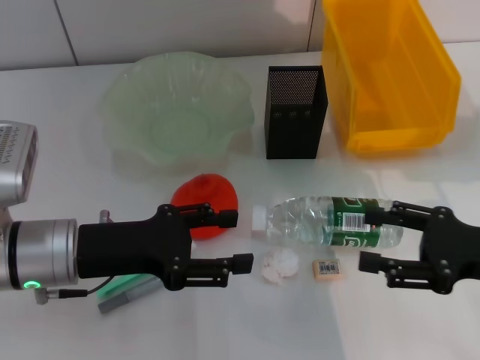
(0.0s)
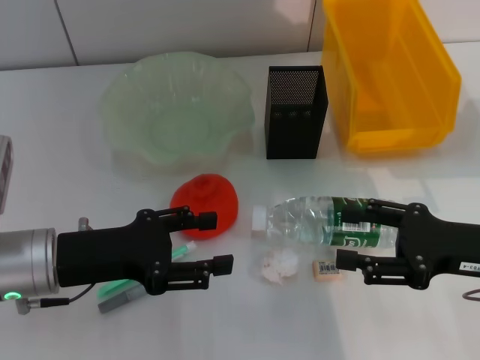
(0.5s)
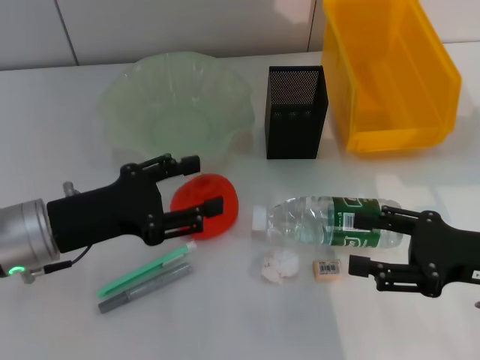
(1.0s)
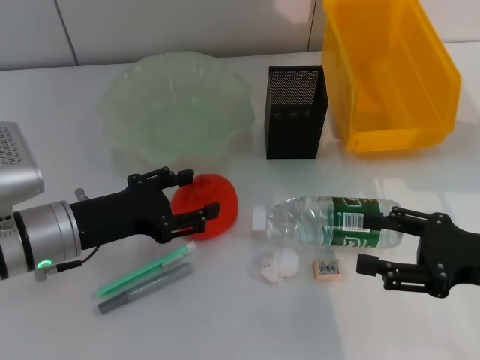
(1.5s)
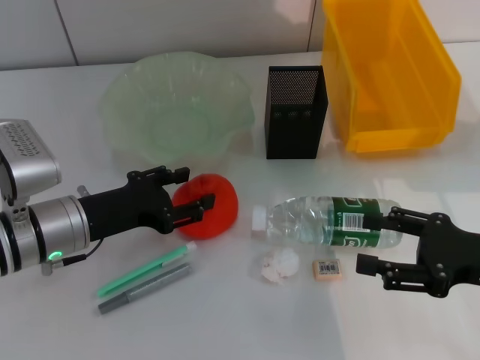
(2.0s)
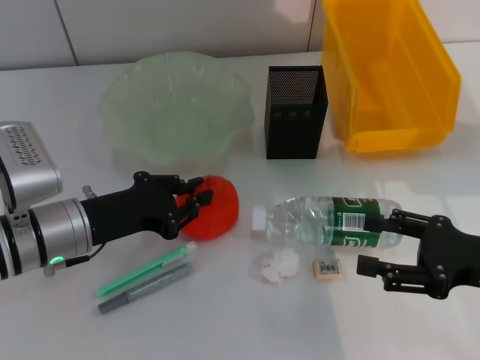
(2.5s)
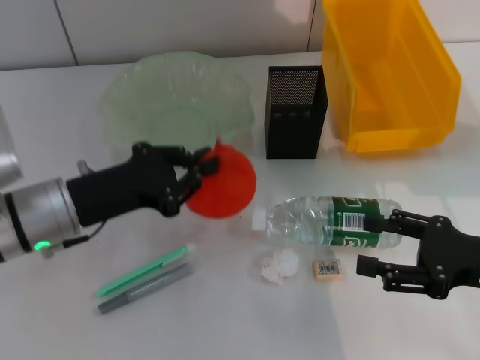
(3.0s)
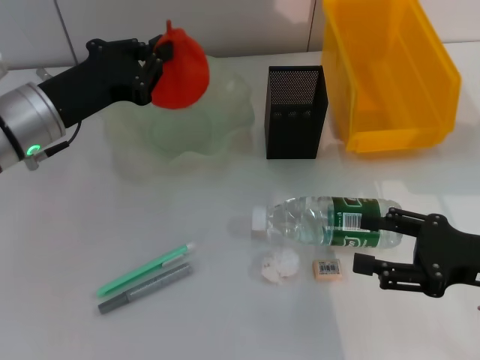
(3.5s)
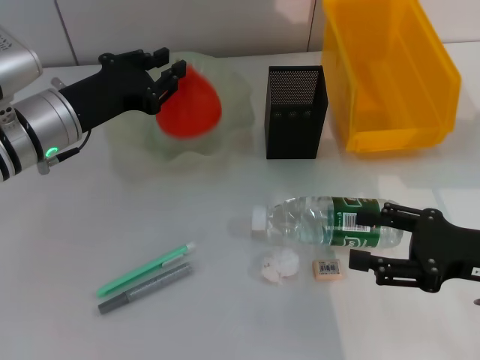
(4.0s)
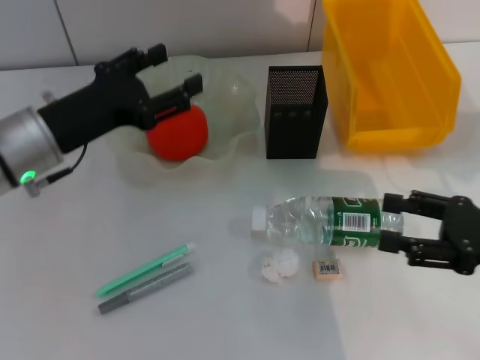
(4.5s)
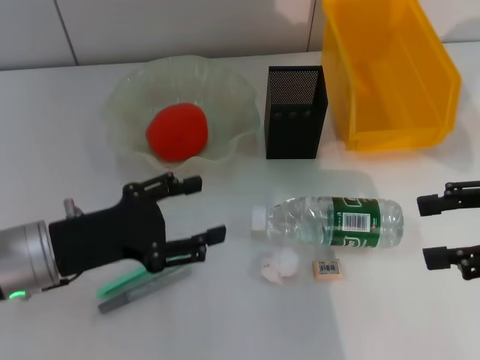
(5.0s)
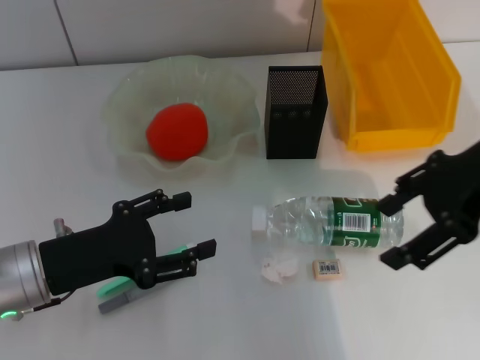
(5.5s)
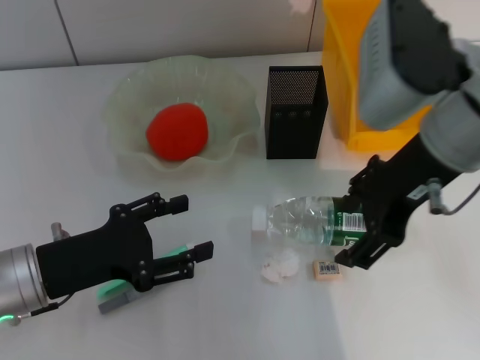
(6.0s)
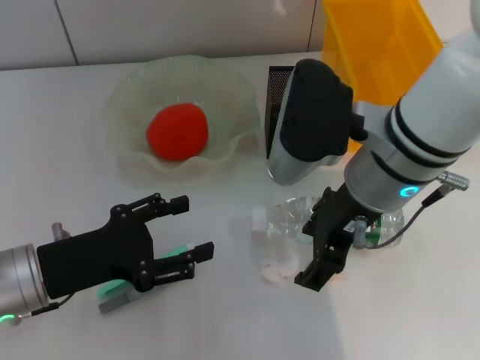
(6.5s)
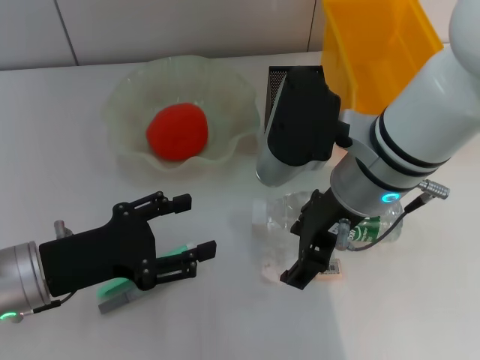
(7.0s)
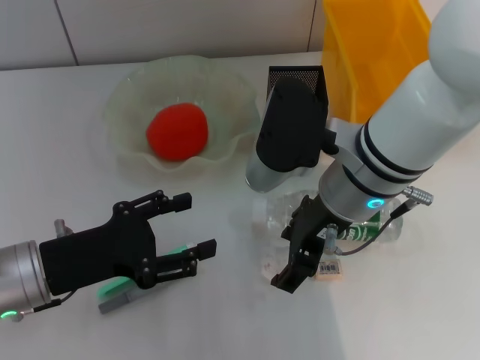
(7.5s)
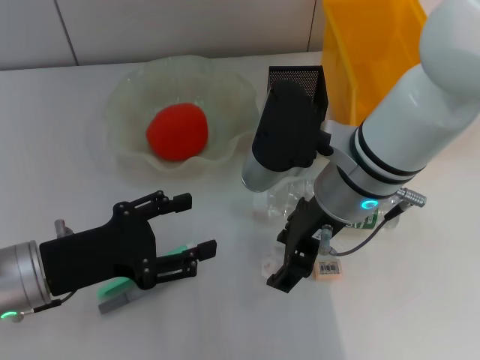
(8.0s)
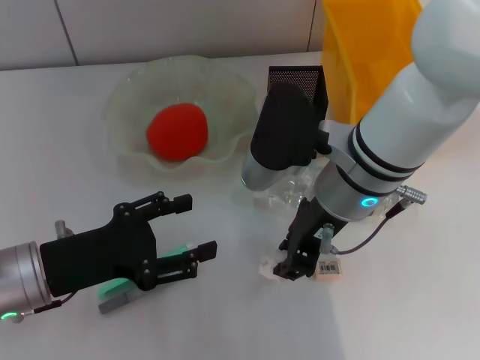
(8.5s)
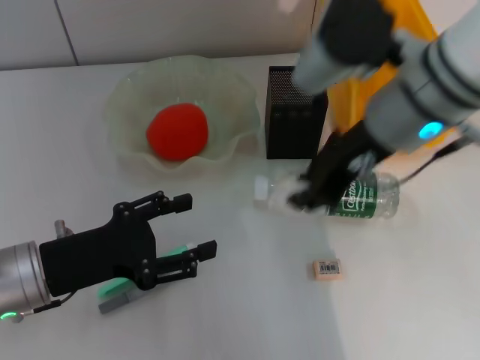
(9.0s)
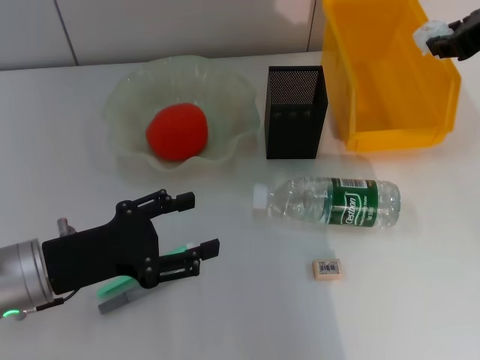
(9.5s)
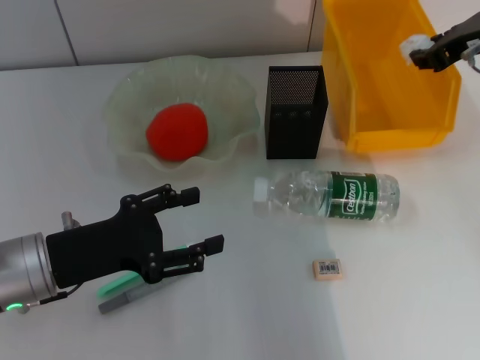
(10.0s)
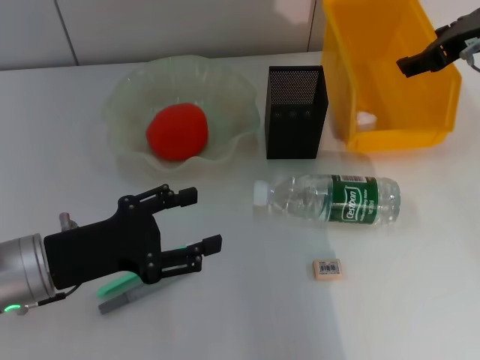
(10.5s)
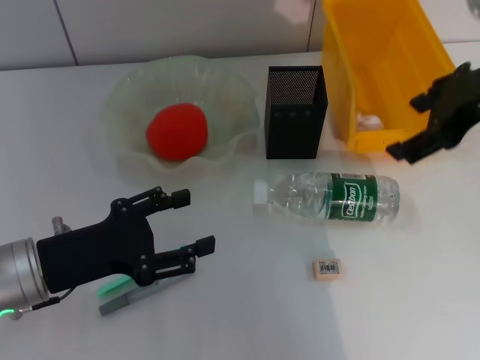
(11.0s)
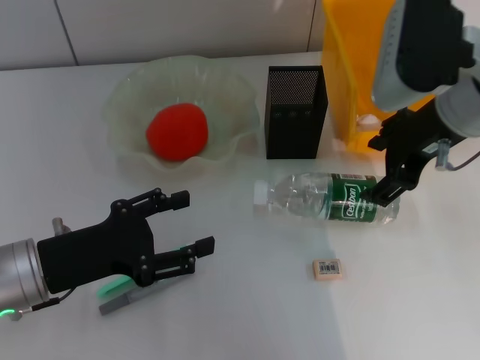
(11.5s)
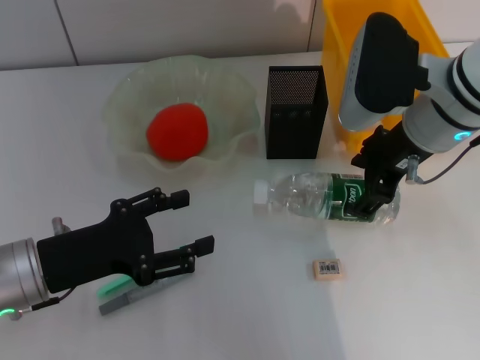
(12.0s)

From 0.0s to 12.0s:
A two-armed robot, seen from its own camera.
Step, from 0.0s to 2.0s: Grab the orange with the left hand.
Step, from 2.5s to 4.0s: Place the orange into the fruit bowl with the left hand.
Step, from 4.5s to 8.0s: Grab the paper ball with the right hand.
Step, from 8.5s to 10.0s: Place the paper ball into the trash can with the right hand.
From 2.0s to 4.0s: The left gripper is displaced forward and upward by roughly 10 cm, and closes up.
From 4.0s to 6.0s: The left gripper heads backward, covering some 15 cm, and opens, while the right gripper shifts roughly 20 cm upward, to the left and forward.
From 6.0s to 8.0s: The right gripper is displaced downward and to the left by roughly 10 cm.
From 8.0s to 10.0s: The right gripper heads to the right and forward, covering about 20 cm, and closes.
From 10.0s to 12.0s: The right gripper heads to the left, covering roughly 10 cm, and opens.

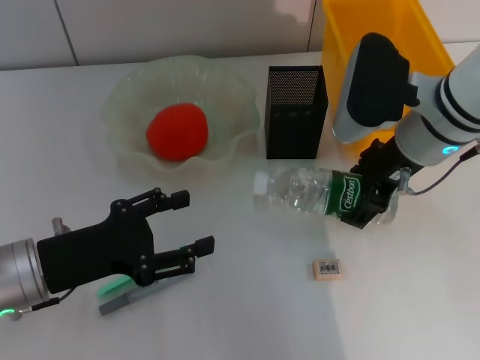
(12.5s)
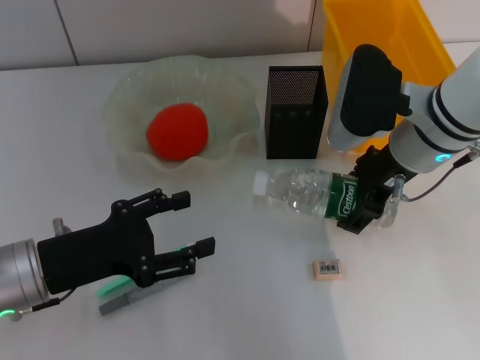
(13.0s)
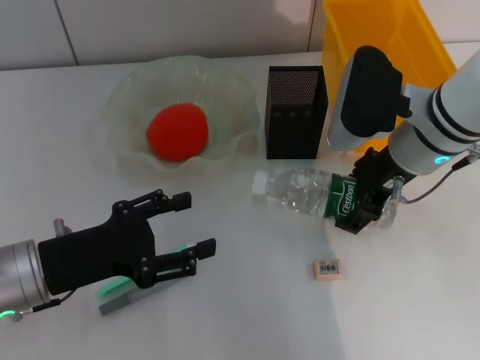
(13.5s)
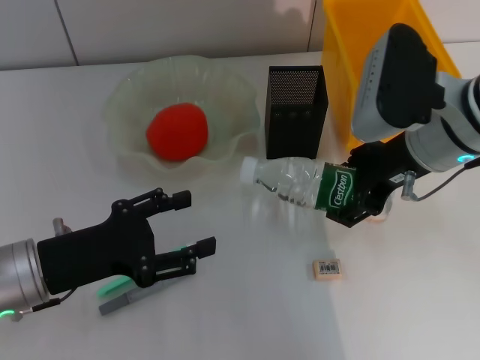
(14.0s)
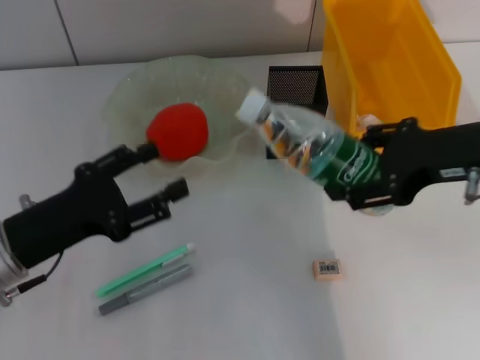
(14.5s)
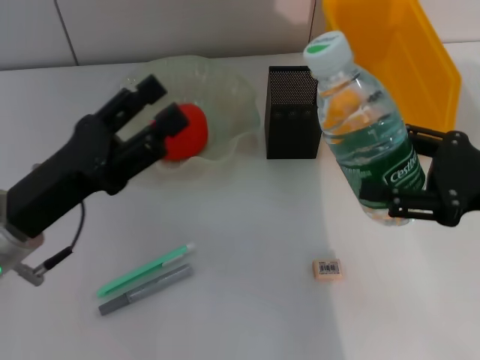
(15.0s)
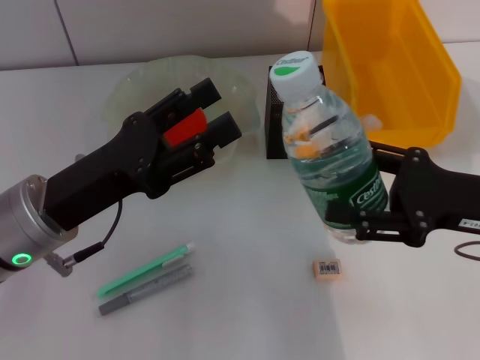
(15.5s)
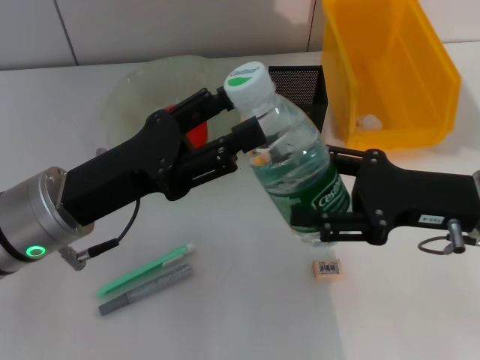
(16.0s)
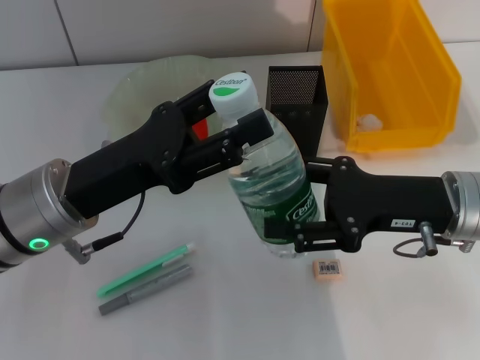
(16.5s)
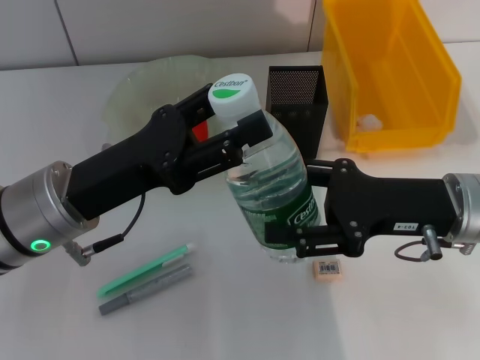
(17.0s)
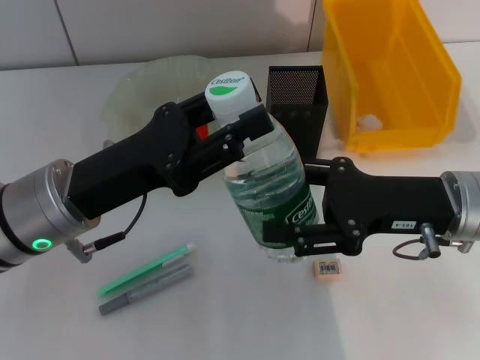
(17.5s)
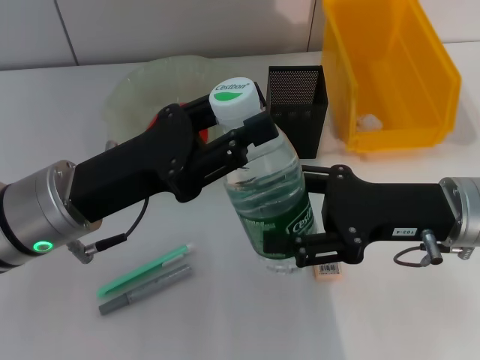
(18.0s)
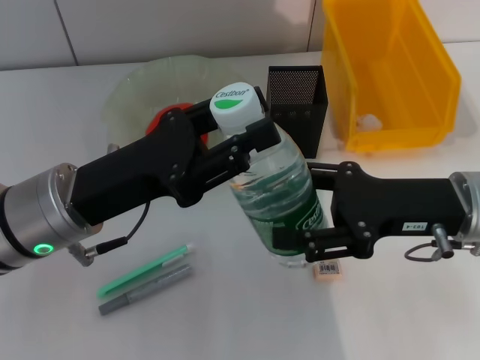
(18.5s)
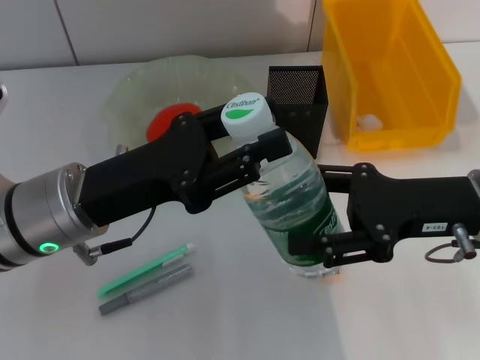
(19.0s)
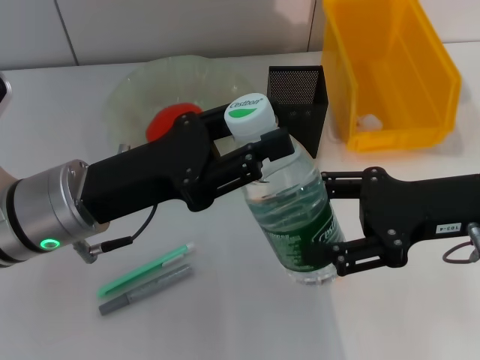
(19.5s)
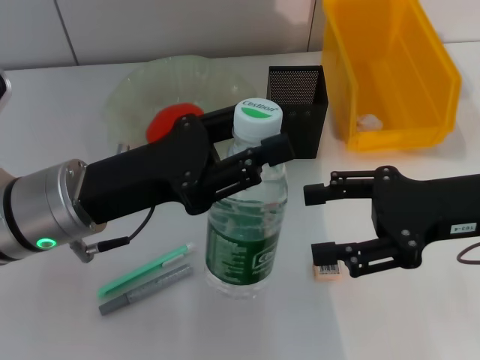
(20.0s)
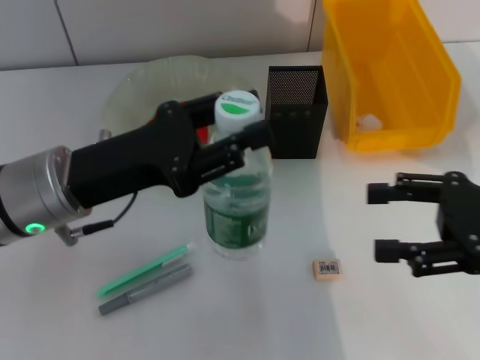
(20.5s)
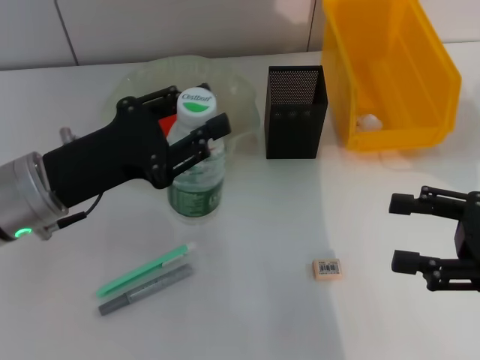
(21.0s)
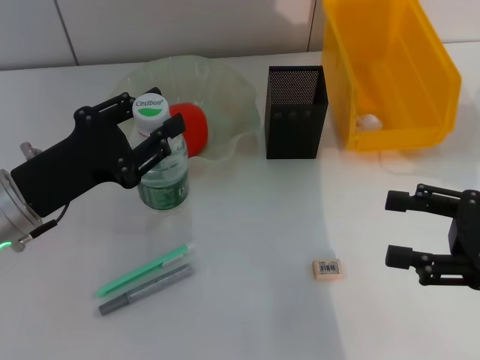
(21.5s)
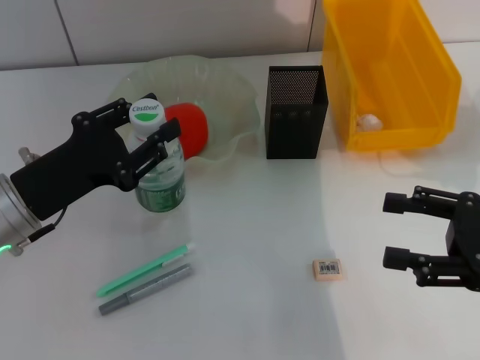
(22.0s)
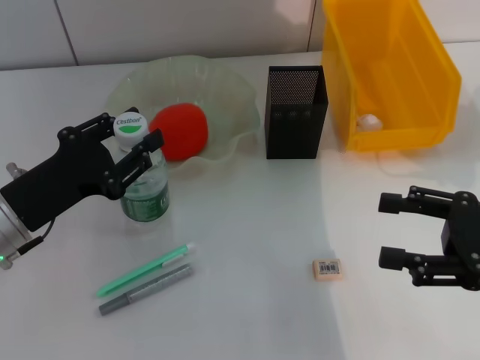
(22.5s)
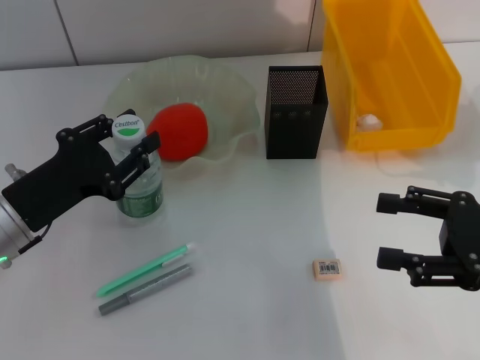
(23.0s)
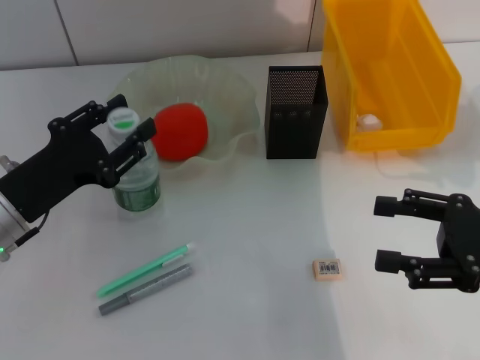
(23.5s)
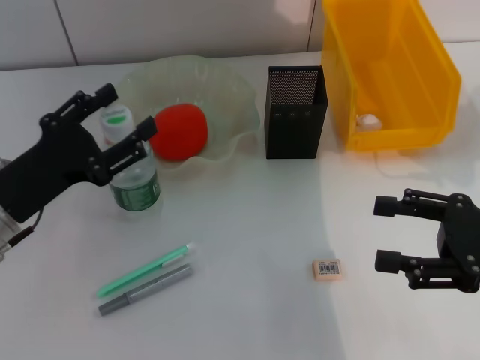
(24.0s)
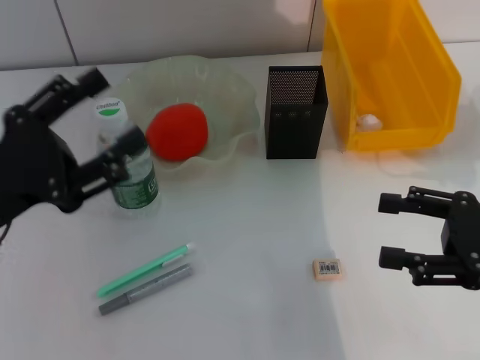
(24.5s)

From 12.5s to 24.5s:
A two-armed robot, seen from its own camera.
Step, from 14.0s to 20.0s: Pass the water bottle from the right hand to the left hand.
Step, from 20.5s to 23.5s: Place the water bottle on the table with the left hand.
From 12.5s to 14.5s: The right gripper moves backward and to the right, about 10 cm.
From 14.5s to 16.5s: The right gripper shifts approximately 10 cm downward. Meanwhile the left gripper heads to the right, covering some 5 cm.
From 16.5s to 18.5s: The left gripper closes up.
From 18.5s to 20.5s: The right gripper is displaced to the right by roughly 5 cm.
From 20.5s to 22.5s: The left gripper moves to the left and downward, about 10 cm.
From 22.5s to 24.5s: The left gripper is displaced upward by roughly 5 cm, and opens up.

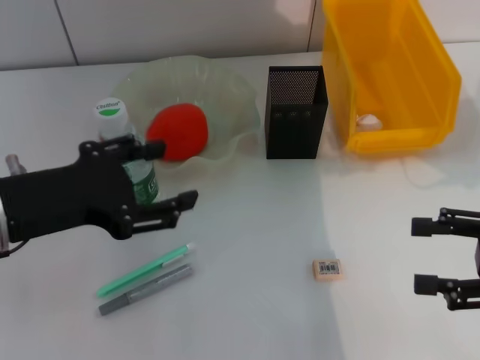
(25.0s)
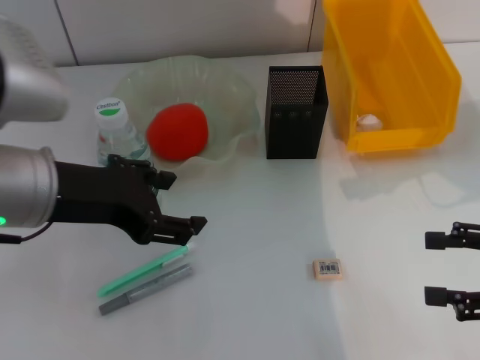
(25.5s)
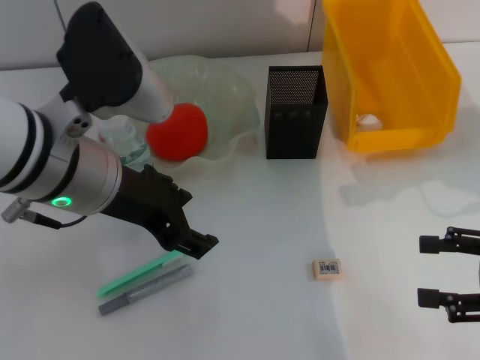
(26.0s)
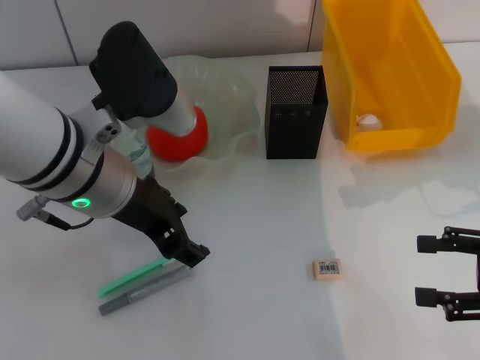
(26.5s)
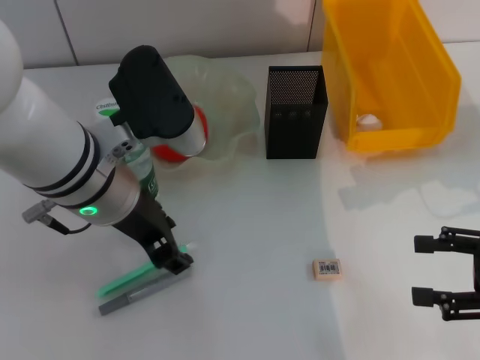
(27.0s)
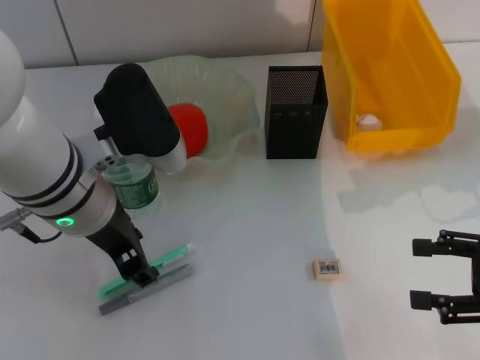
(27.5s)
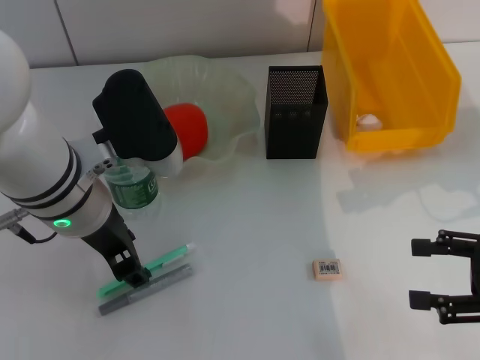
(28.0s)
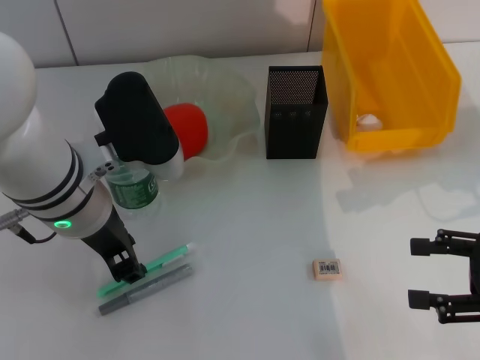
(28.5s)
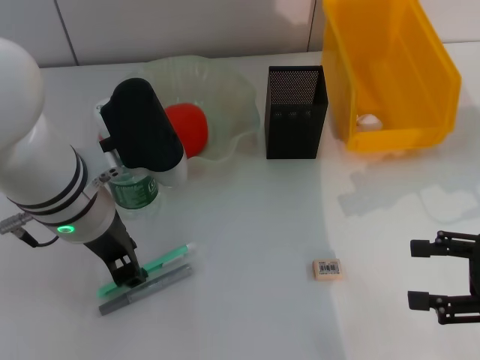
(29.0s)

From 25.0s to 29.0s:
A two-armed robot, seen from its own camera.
From 25.0s to 27.0s: The left gripper shifts some 15 cm to the right and forward.
From 27.0s to 29.0s: There are only small adjustments of the grippers.
